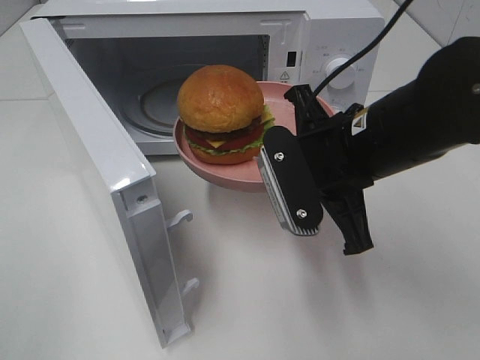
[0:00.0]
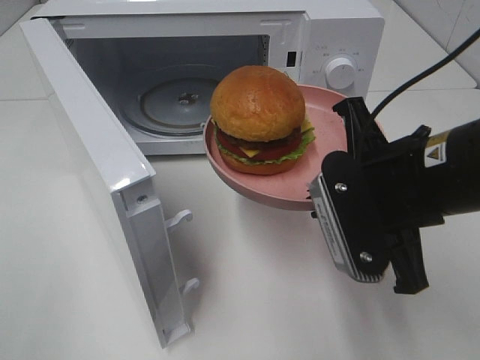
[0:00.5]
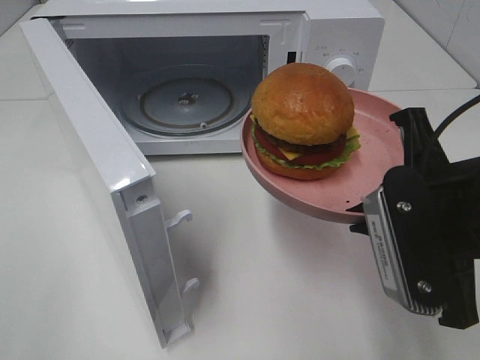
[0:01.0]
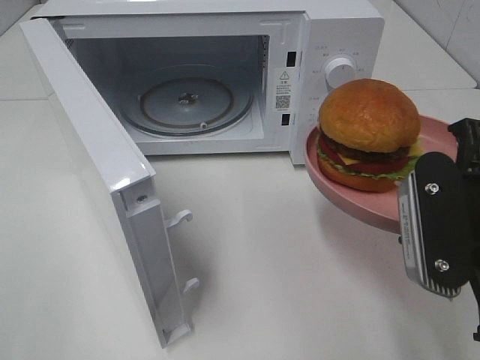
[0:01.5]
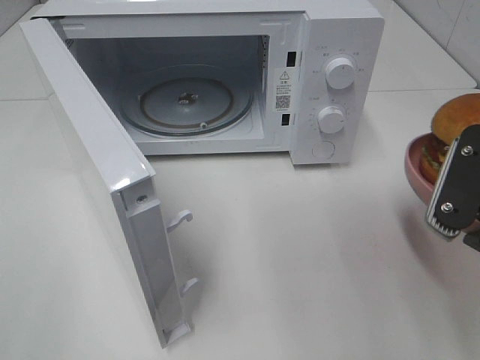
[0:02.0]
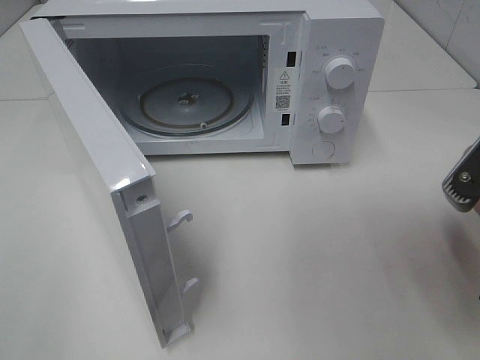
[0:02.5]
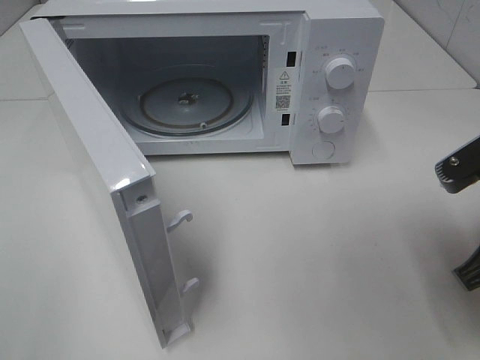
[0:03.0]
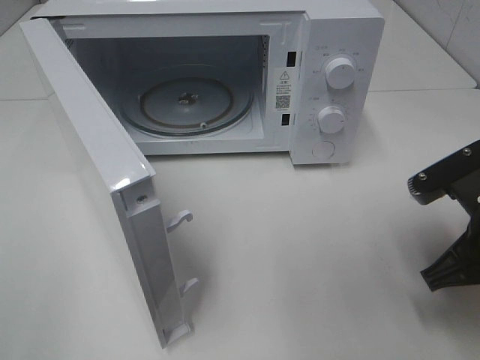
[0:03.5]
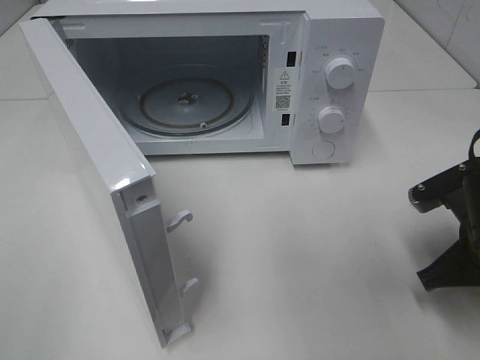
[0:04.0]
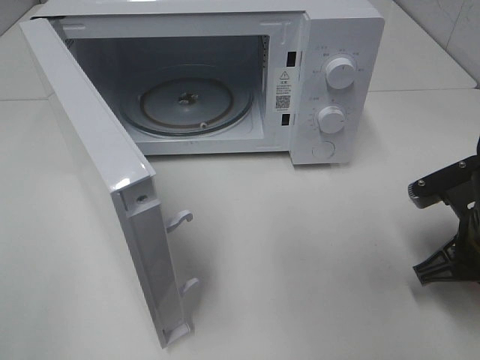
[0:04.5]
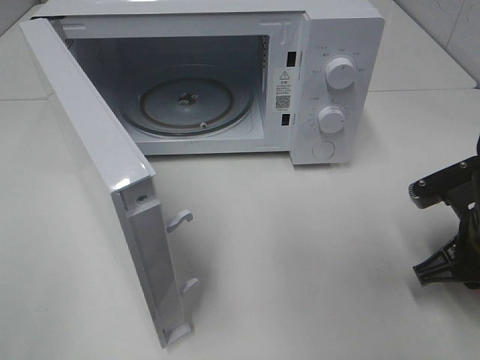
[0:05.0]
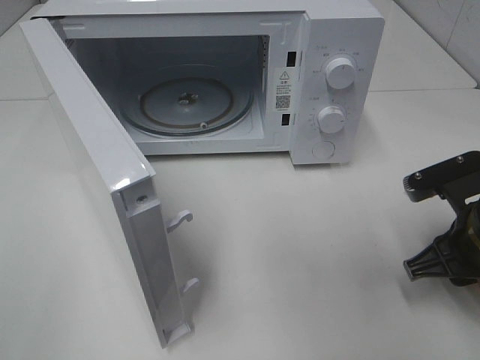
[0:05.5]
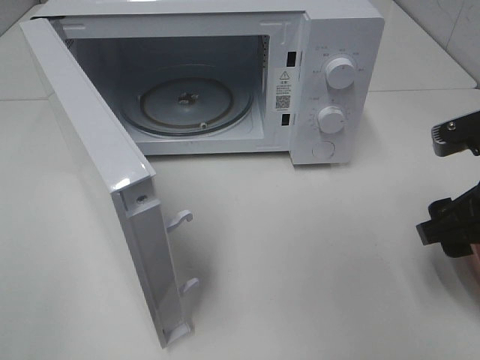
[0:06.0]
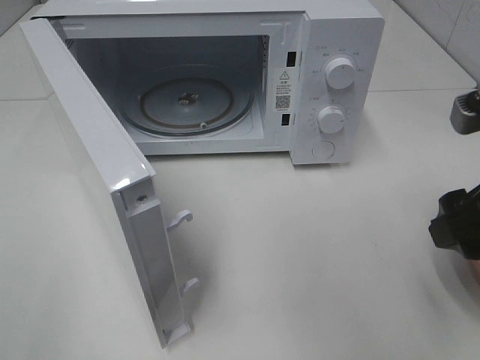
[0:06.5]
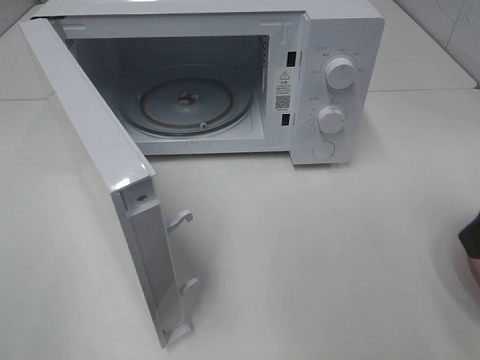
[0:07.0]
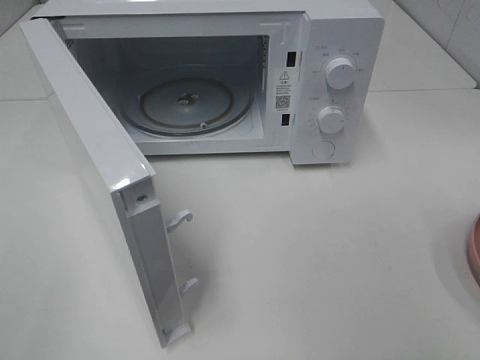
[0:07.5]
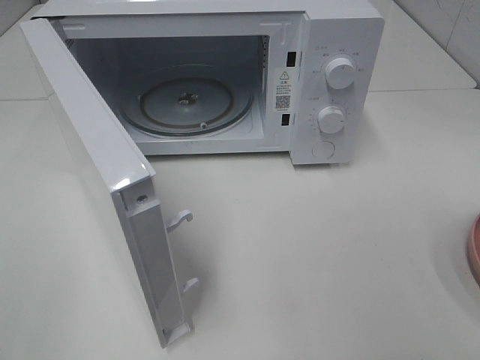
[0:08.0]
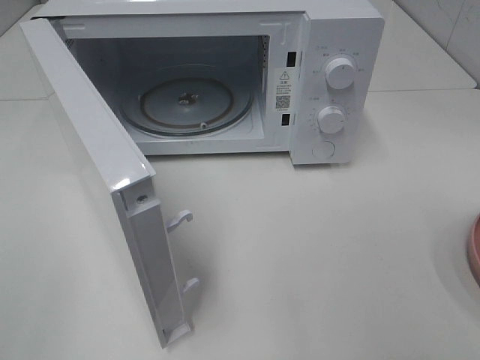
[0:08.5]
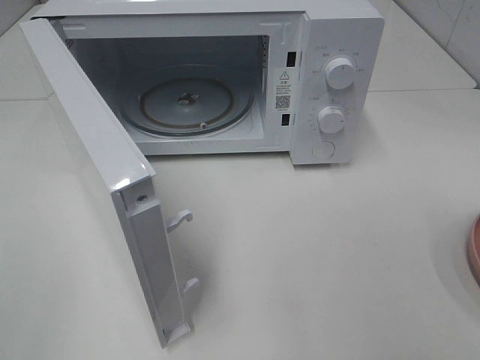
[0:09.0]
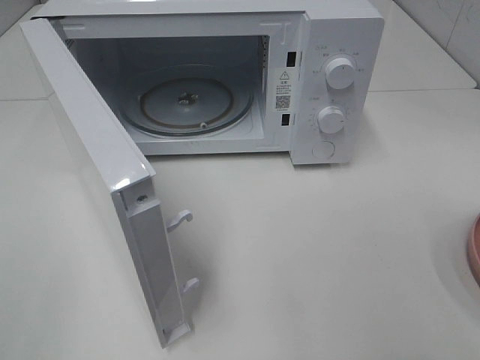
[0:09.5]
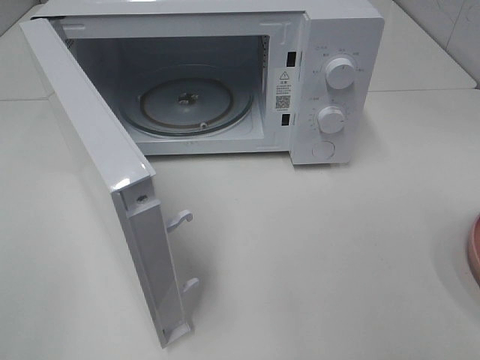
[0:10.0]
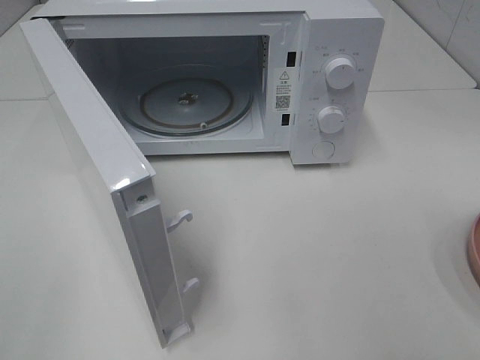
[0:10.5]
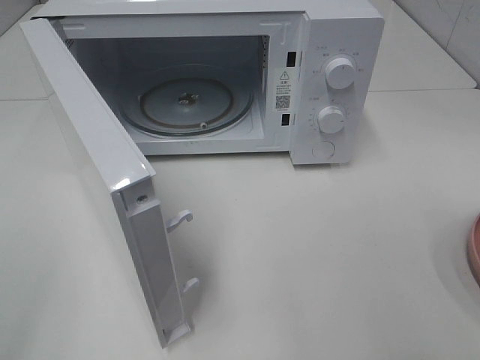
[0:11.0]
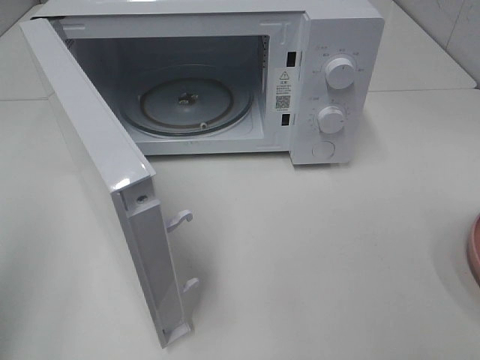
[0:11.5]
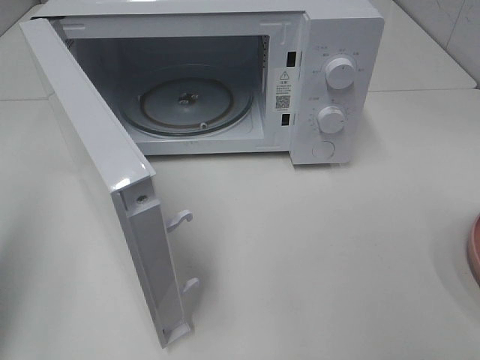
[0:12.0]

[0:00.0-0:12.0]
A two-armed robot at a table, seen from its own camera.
Task of the whole recording: Heat the burger.
Step, 0.0 to 4.5 s: Right hand: place the plate on the table.
0.0 to 2.0 s: The right gripper shifts approximately 15 cm to the right and backward.
2.0 to 4.0 s: The right gripper travels downward and forward by some 10 cm.
4.0 to 6.0 s: The right gripper travels upward by roughly 5 cm, and opens its fingers.
6.0 to 8.0 s: The right gripper travels backward and upward by some 20 cm.
10.0 to 12.0 s: The left gripper moves forward, about 15 cm, and closes its fingers.

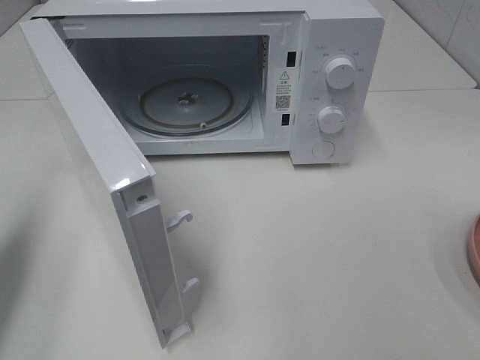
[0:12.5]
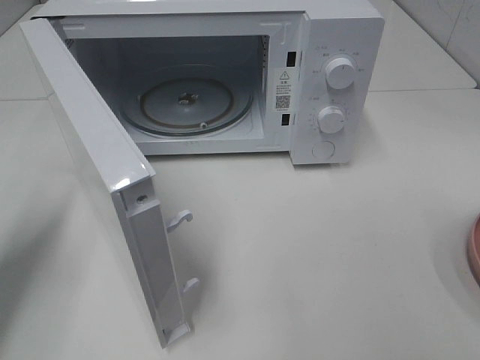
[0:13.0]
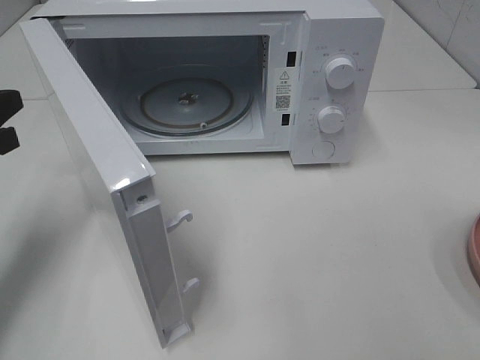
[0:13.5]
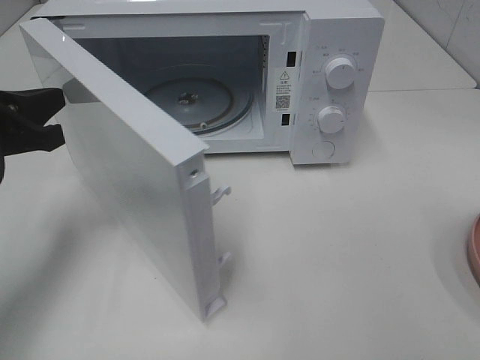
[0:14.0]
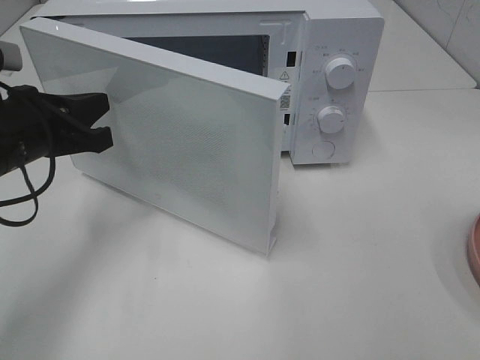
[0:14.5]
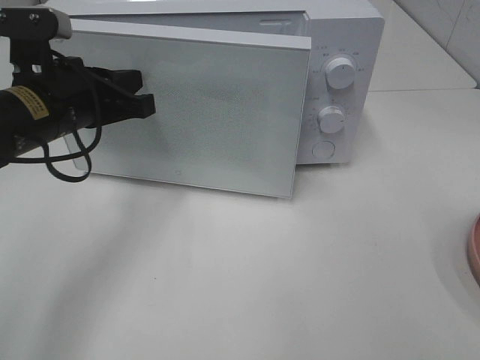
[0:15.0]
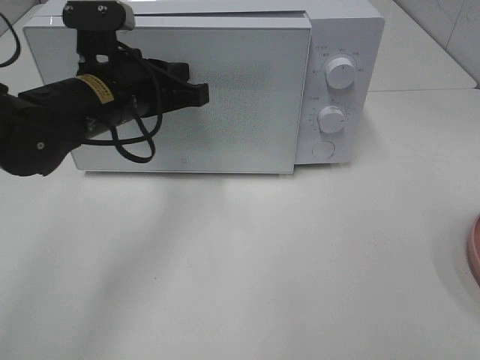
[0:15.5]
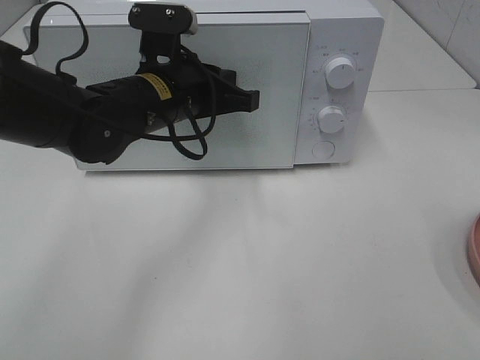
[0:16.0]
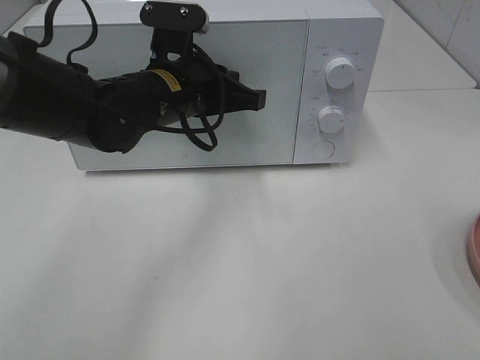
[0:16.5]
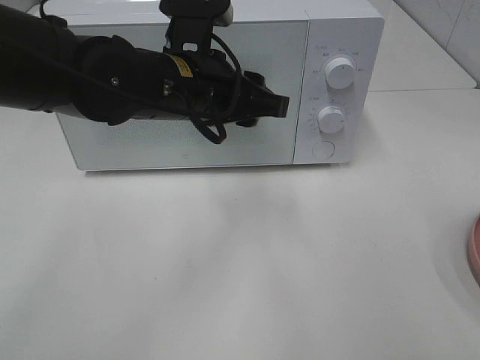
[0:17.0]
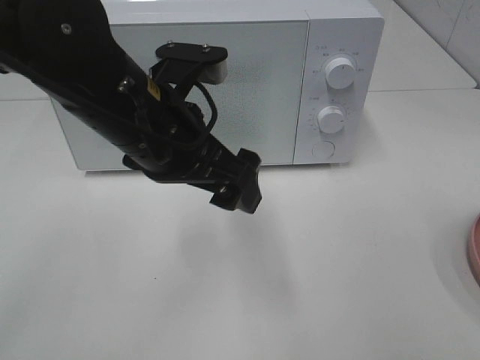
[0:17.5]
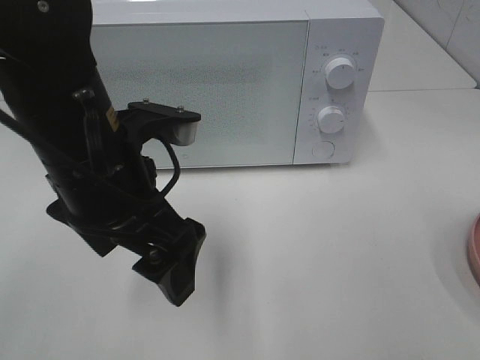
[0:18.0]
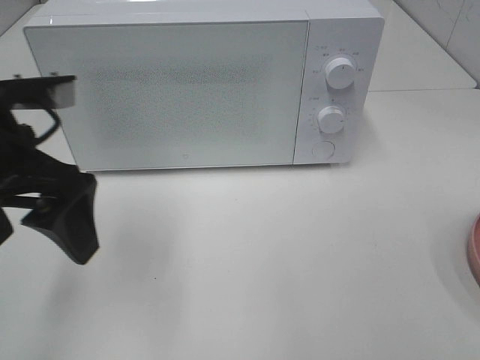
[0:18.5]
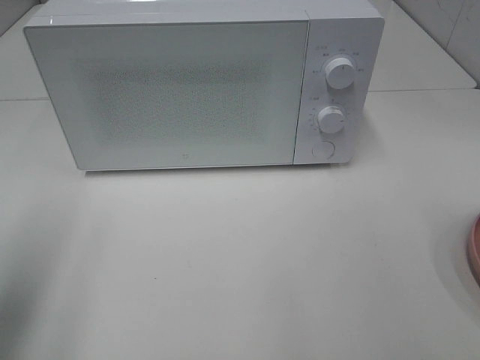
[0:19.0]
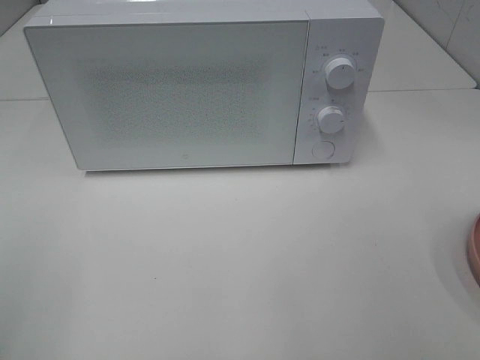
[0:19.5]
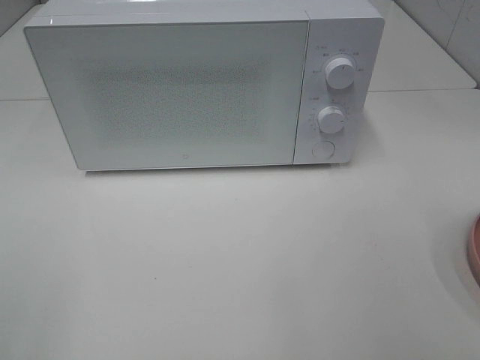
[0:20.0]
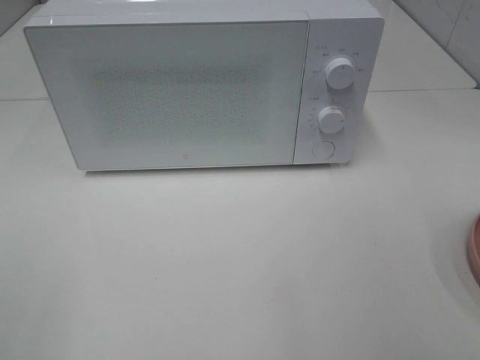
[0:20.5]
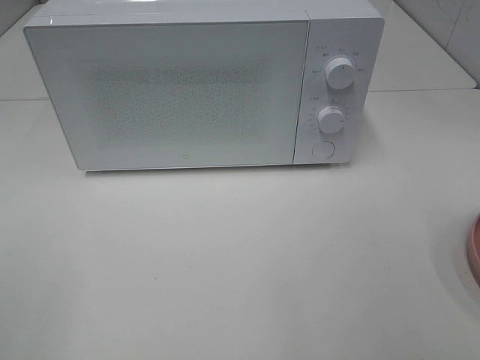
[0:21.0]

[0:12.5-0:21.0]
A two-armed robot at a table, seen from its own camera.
Task of the whole recording: Heat the burger.
Step, 12.5 to 16.5 s: Left hand: close the microwave door.
12.5 to 14.5 s: The left gripper moves to the right, forward and downward, some 15 cm.
14.5 to 16.5 s: The left gripper travels to the right and forward by roughly 15 cm.
16.5 to 19.0 s: The left gripper moves to the left and backward, about 30 cm, and opens its fingers.
19.0 to 21.0 s: The left gripper moves backward, about 15 cm.

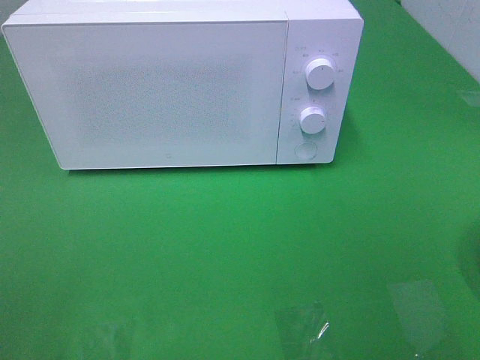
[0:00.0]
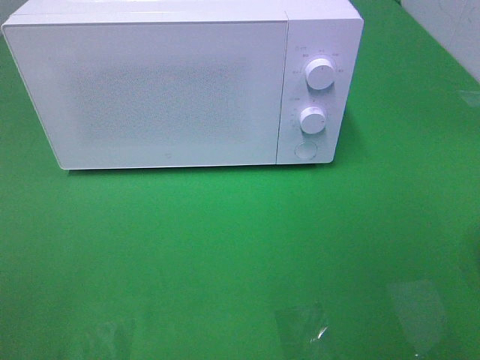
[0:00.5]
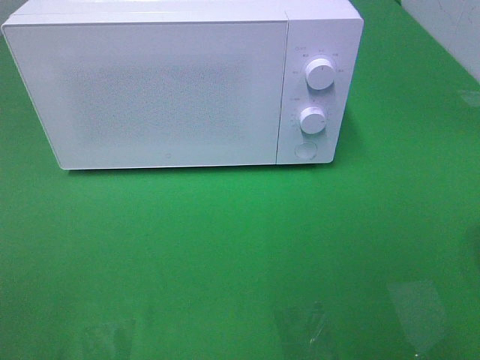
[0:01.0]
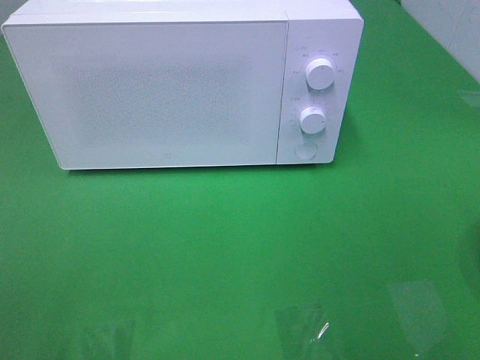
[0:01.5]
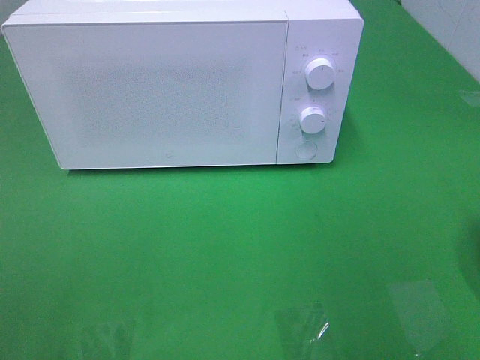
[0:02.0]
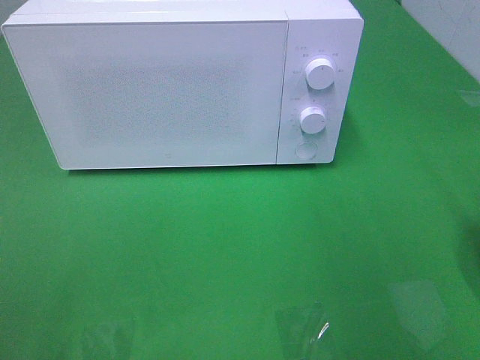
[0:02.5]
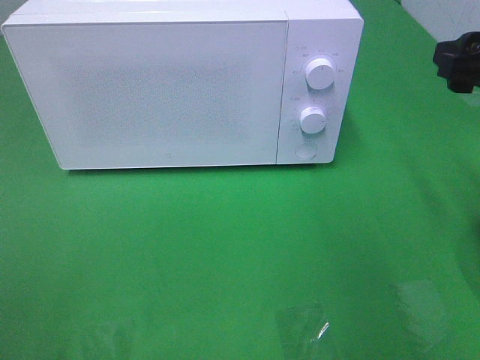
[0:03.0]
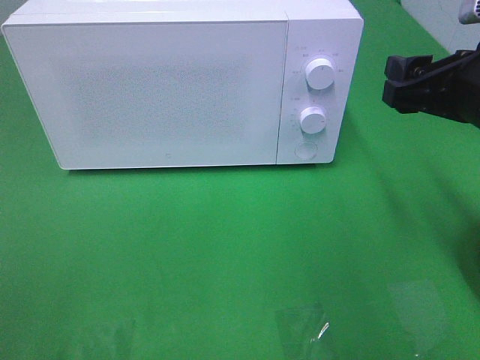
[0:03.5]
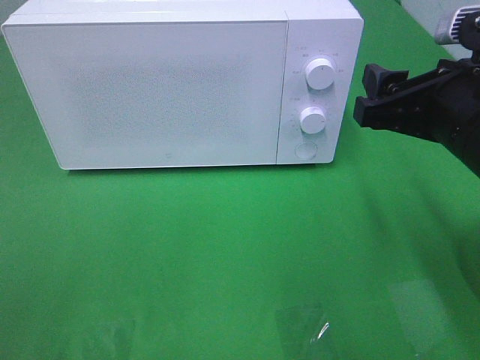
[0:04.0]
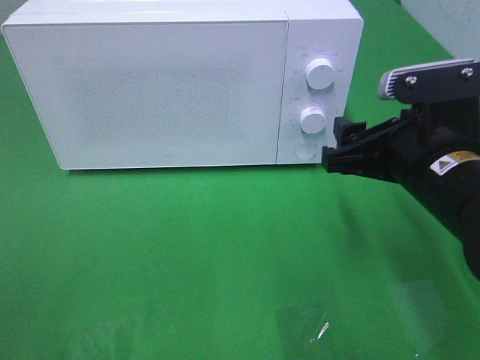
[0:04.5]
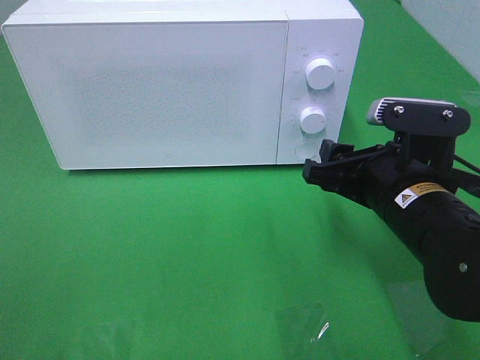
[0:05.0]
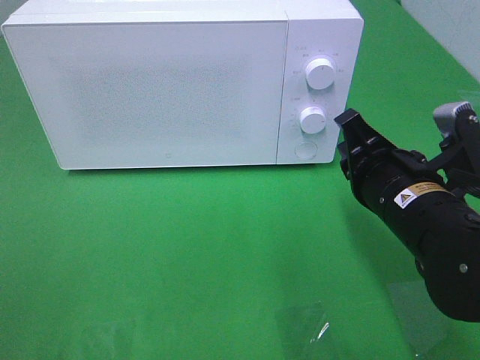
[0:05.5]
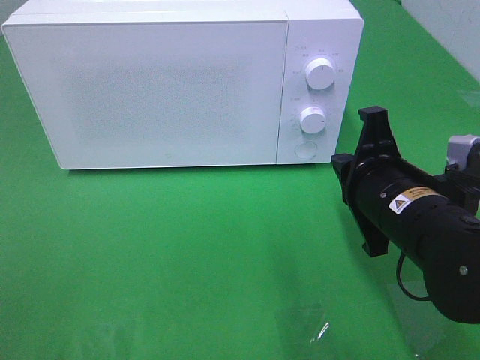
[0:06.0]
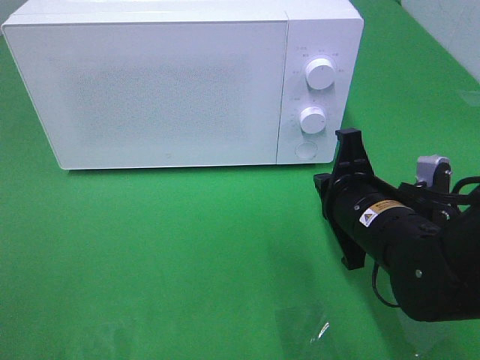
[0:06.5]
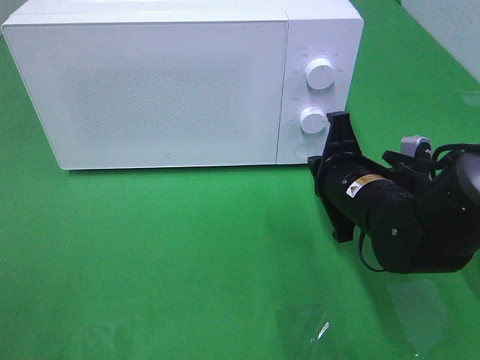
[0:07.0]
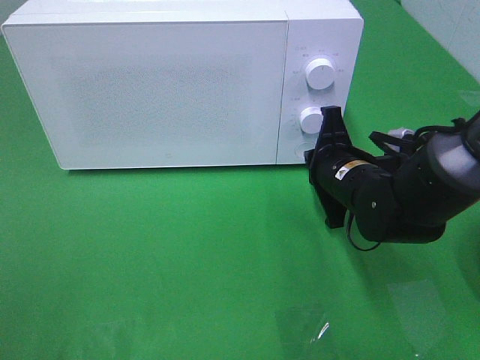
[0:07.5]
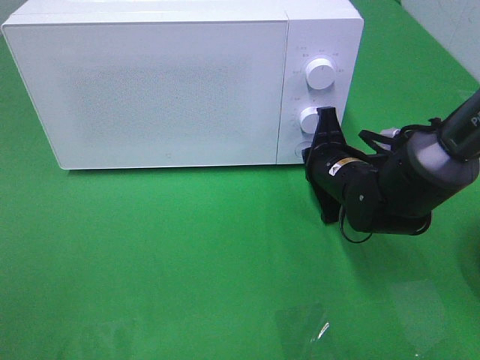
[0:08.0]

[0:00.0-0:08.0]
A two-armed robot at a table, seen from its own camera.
Task of the whole recording: Heat the burger.
2.0 to 4.0 s: The right gripper shifts approximately 15 cm to the left, downward and forward.
4.0 to 6.0 s: The right gripper heads downward, covering about 10 cm, and closes its fingers.
6.0 to 8.0 s: The right gripper goes roughly 15 cm forward and downward.
